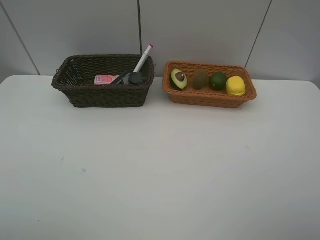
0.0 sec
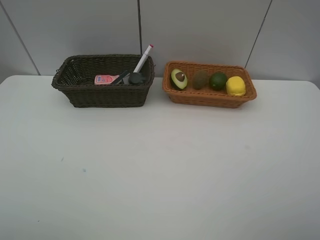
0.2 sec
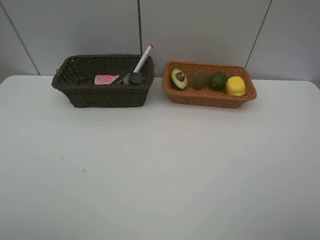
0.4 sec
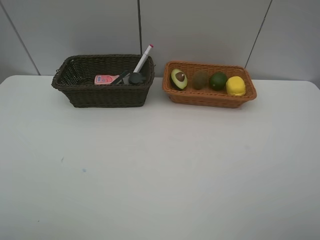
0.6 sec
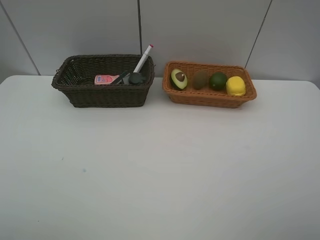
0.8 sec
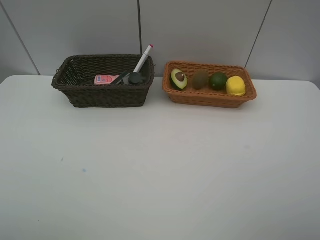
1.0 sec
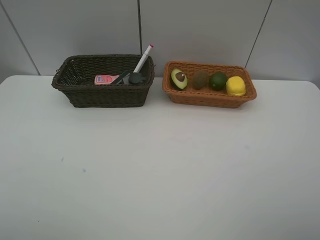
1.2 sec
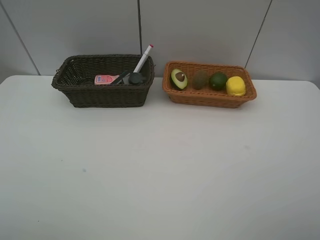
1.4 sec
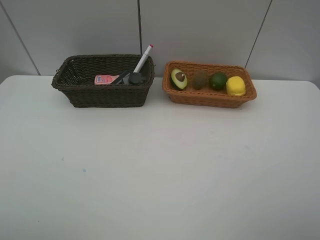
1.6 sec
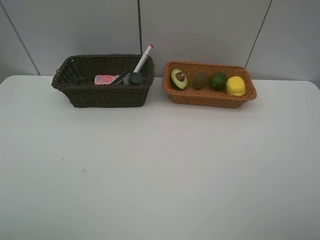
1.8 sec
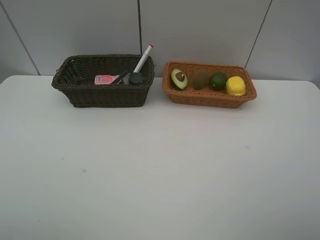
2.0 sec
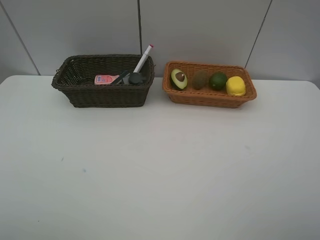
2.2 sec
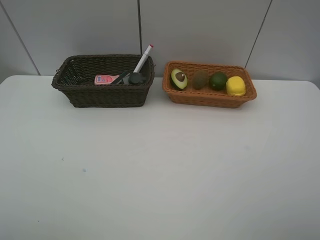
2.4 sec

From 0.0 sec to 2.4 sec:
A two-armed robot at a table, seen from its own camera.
Task of the whole recording: Place multiple objects separately in different baskets.
From 0.0 sec to 2.4 sec: Both grippers stay about where they are.
